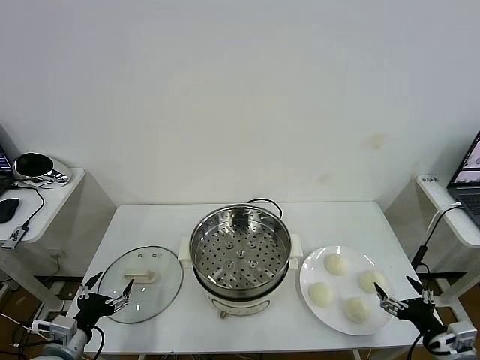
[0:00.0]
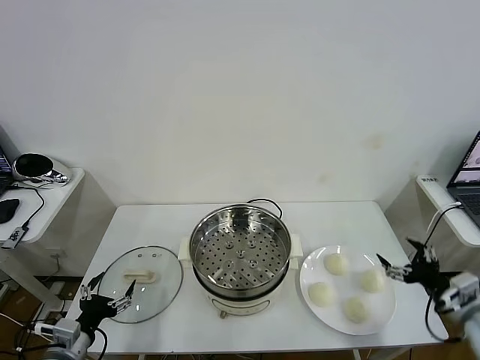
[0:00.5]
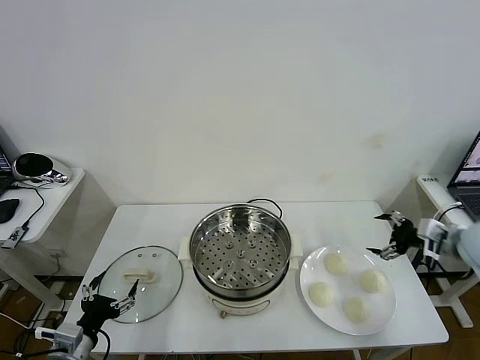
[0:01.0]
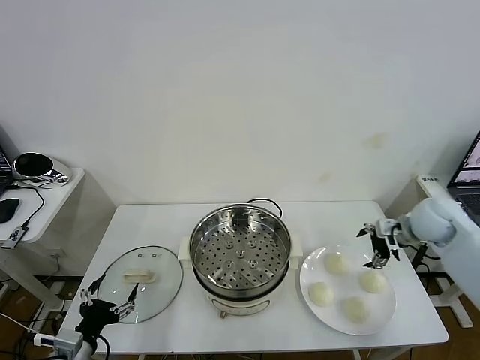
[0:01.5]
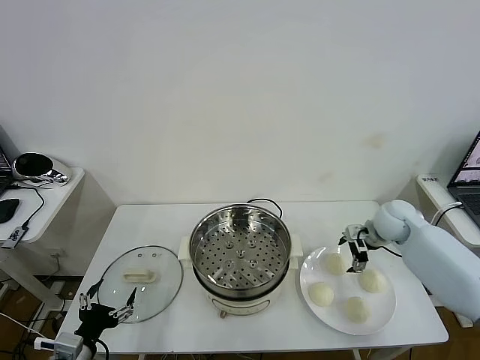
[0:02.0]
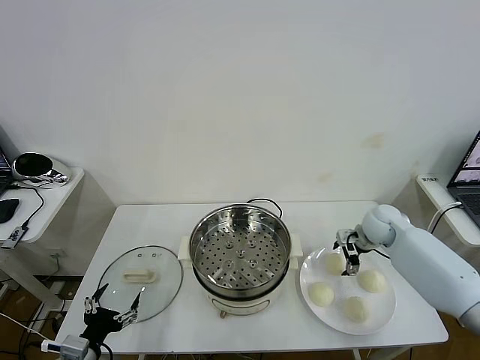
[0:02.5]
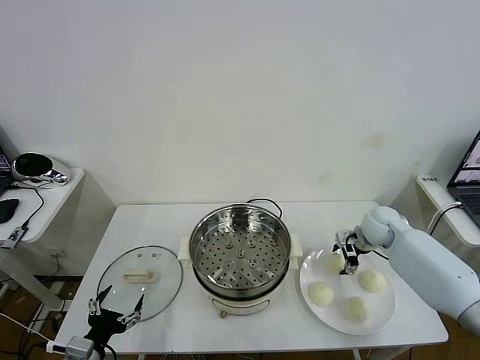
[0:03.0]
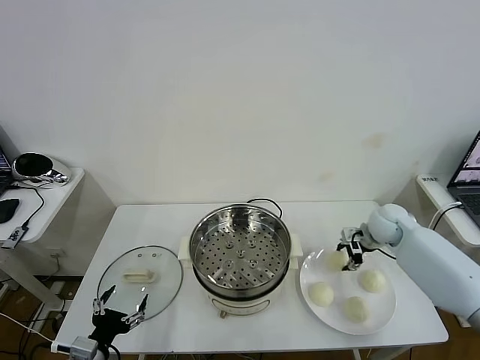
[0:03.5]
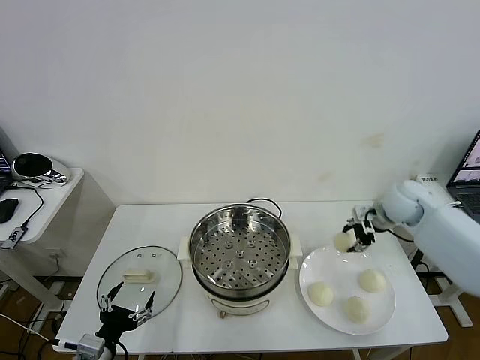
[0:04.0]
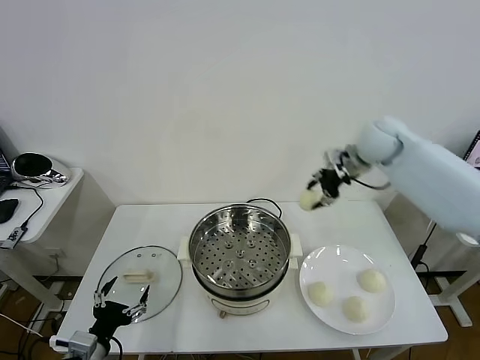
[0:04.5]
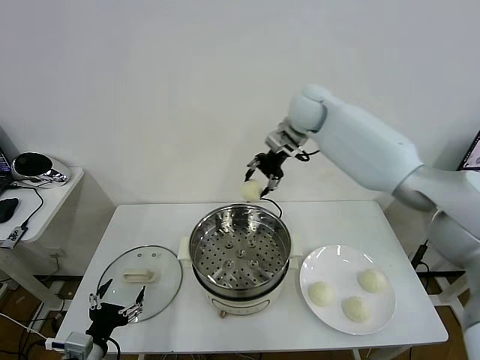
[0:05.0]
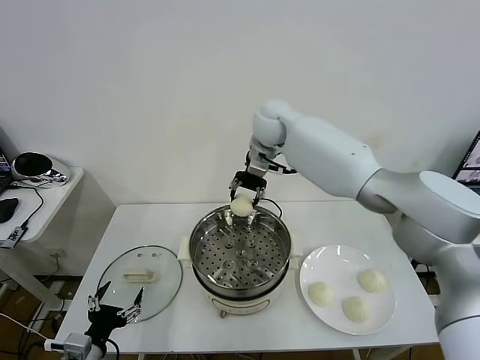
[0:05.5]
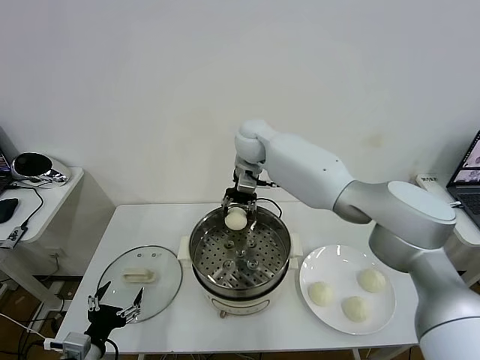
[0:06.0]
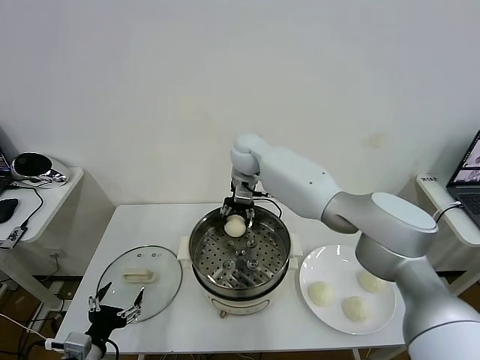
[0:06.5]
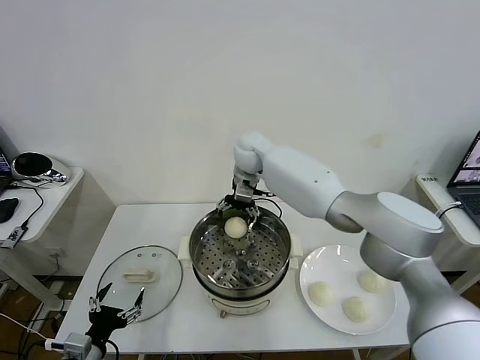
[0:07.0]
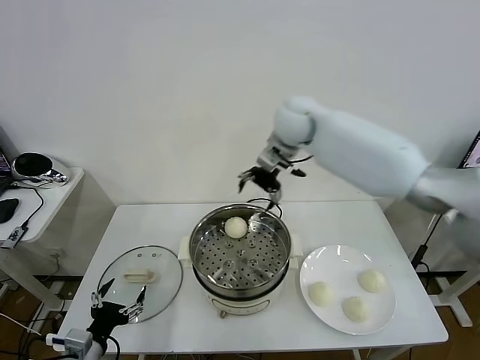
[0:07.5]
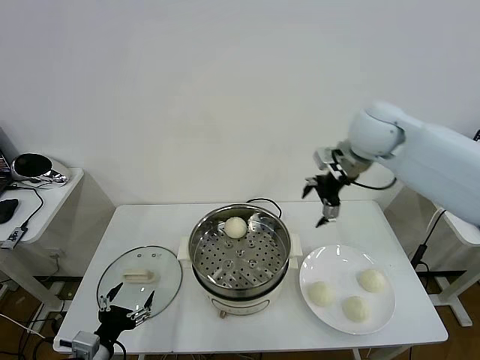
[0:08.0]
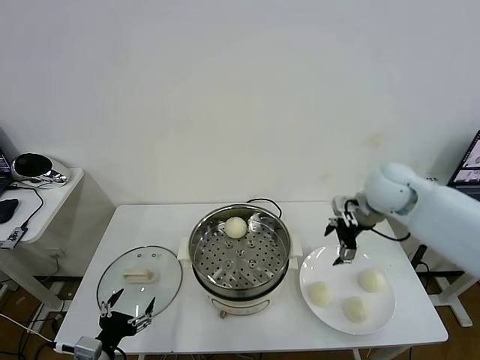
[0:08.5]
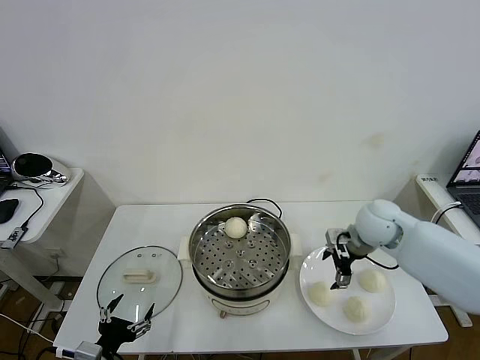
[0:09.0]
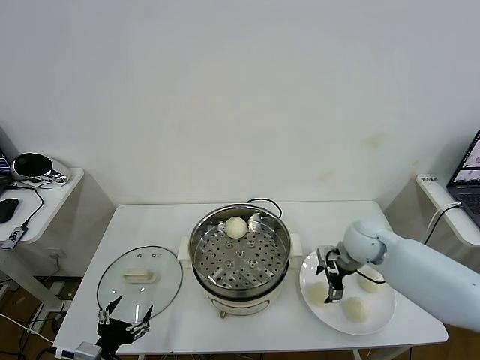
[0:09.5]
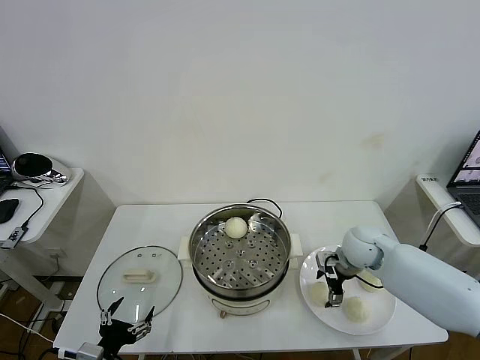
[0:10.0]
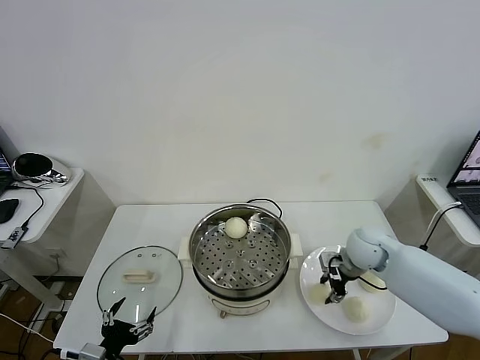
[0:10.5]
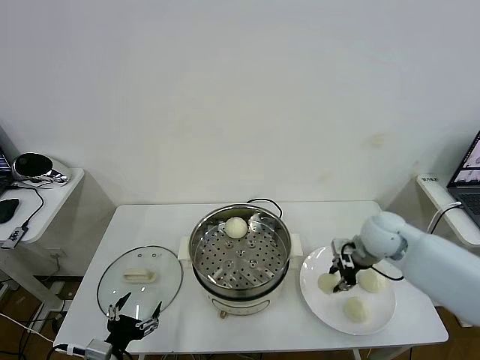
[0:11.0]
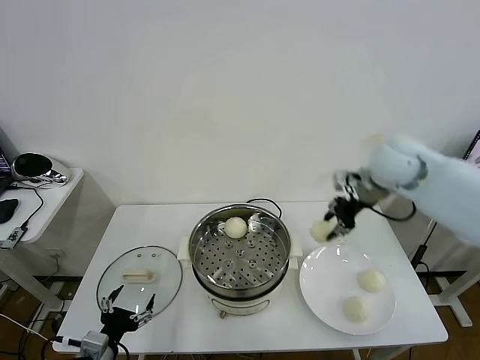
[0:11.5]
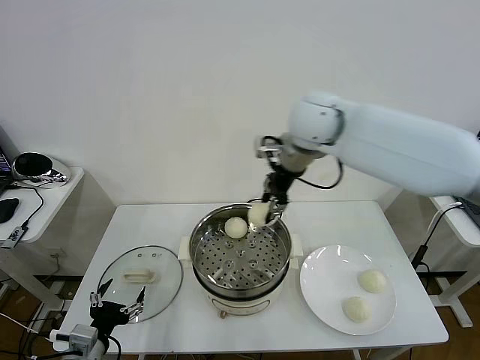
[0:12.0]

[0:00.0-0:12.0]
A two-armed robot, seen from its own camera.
Task of the whole recording: take steamed baozi put them in steamer then cover it.
Step, 0.0 to 3.0 s: Grasp the baozi in the plate with right gripper.
Step, 3.5 to 7.0 s: Place the baozi on the steamer with right gripper.
Step, 7.5 to 10.5 s: Grasp the baozi in the plate with right gripper.
2.0 to 4.0 s: The right gripper is displaced upward by about 10 cm, and closes its fingers.
4.0 to 6.0 s: The right gripper is displaced to the left by some 35 cm.
6.0 to 8.0 s: The right gripper shifts some 25 cm to the right and backward, and opens up.
8.0 to 10.0 s: The right gripper shifts roughly 25 cm downward.
10.0 to 12.0 s: The right gripper moves upward and to the left, roughly 35 cm, and closes up.

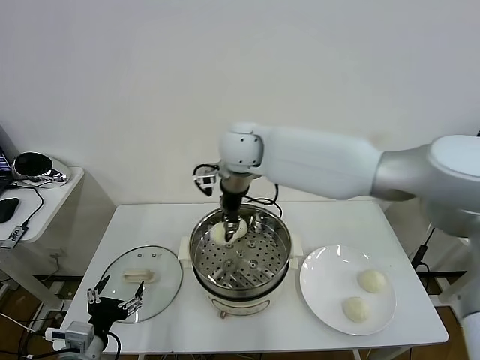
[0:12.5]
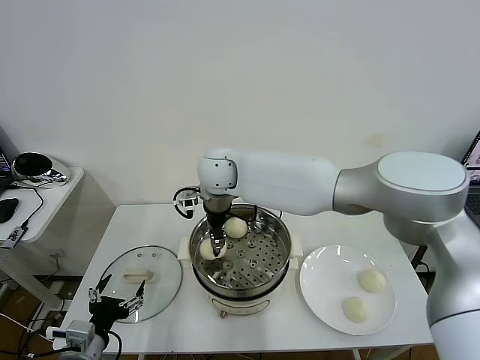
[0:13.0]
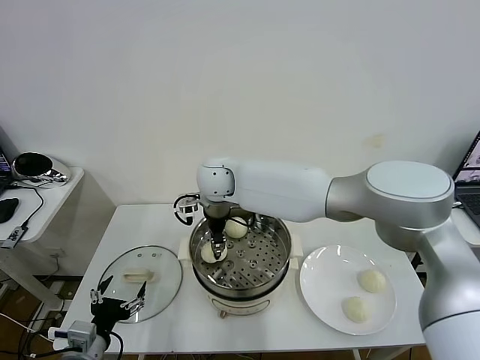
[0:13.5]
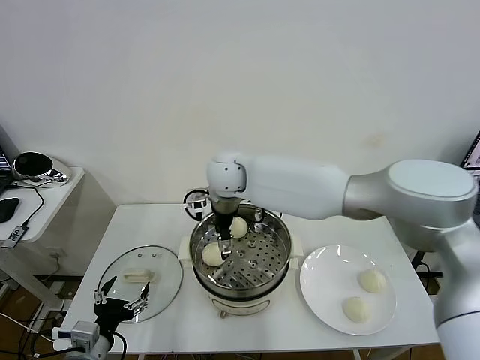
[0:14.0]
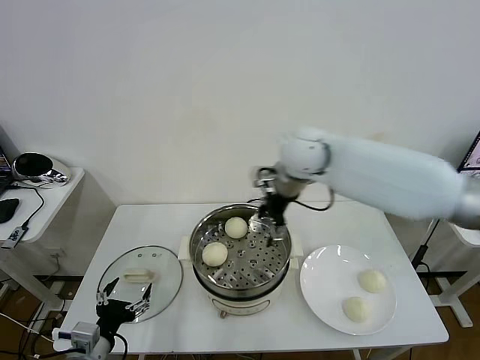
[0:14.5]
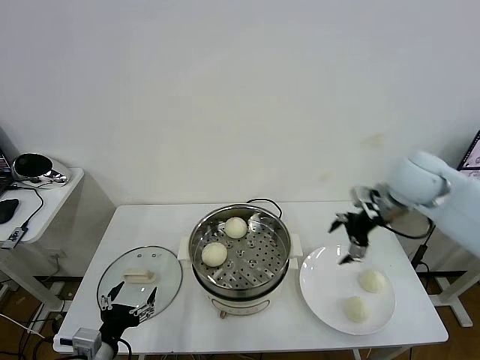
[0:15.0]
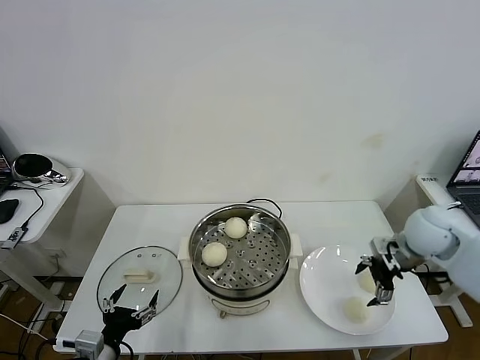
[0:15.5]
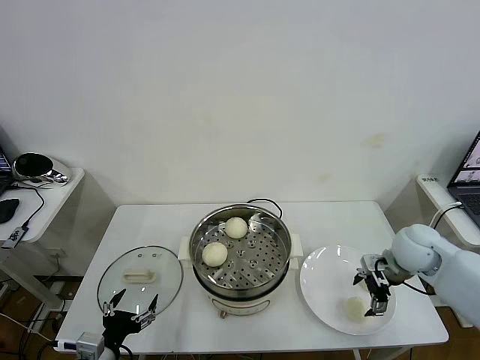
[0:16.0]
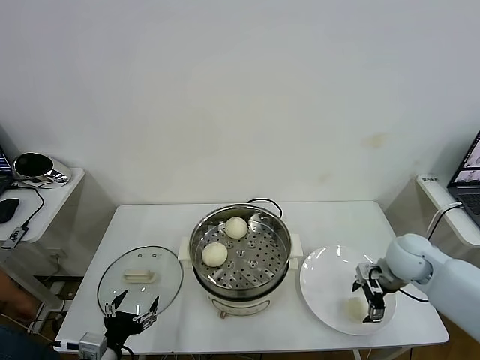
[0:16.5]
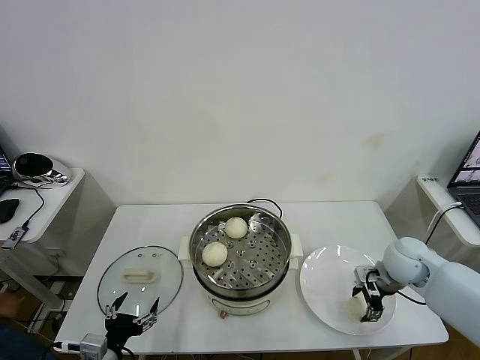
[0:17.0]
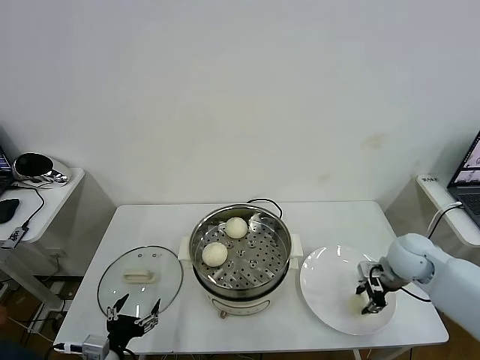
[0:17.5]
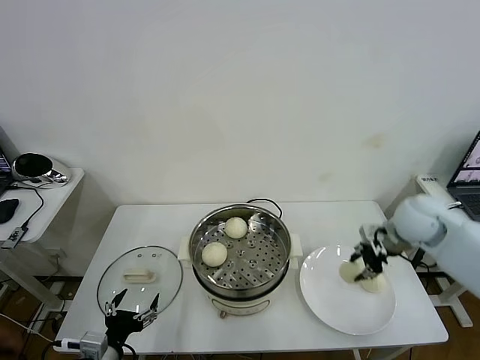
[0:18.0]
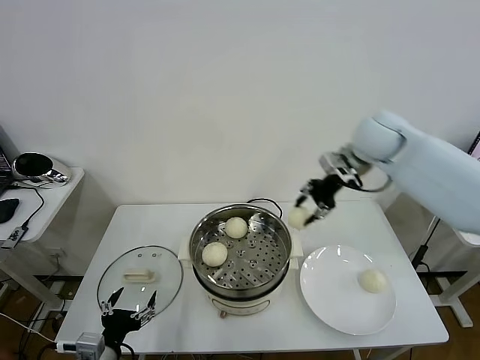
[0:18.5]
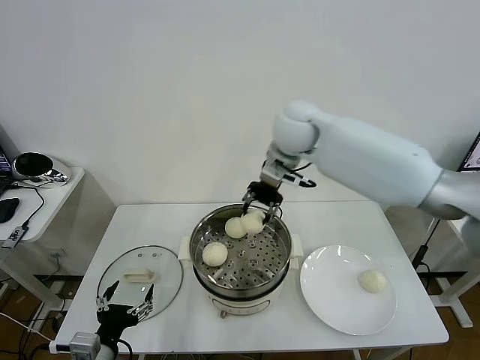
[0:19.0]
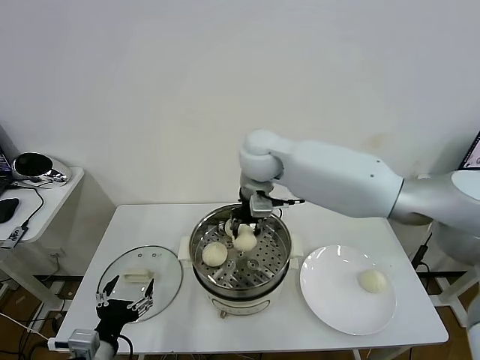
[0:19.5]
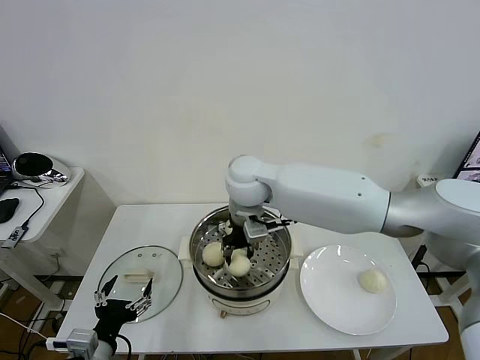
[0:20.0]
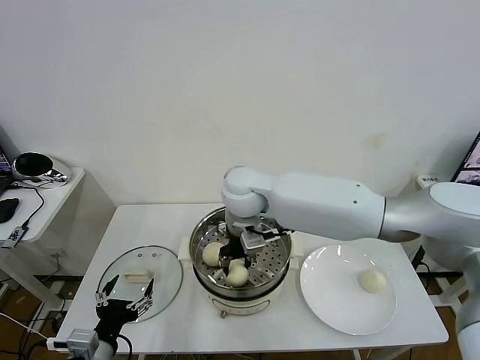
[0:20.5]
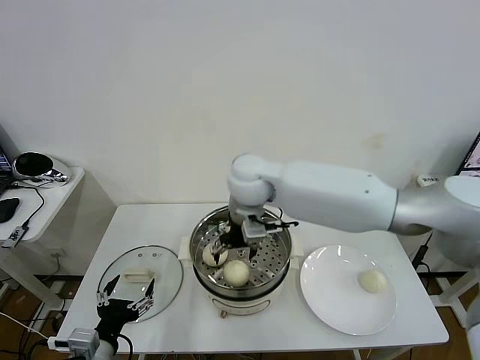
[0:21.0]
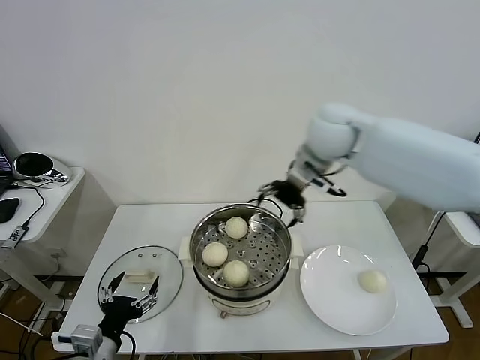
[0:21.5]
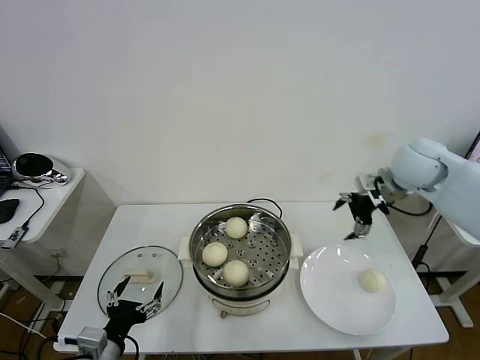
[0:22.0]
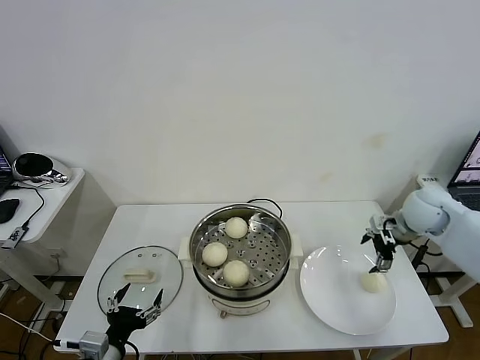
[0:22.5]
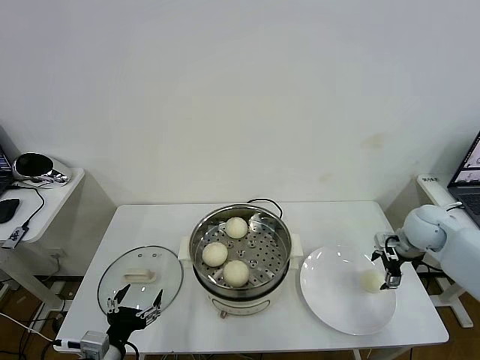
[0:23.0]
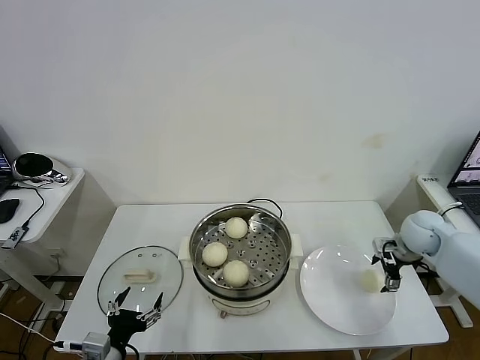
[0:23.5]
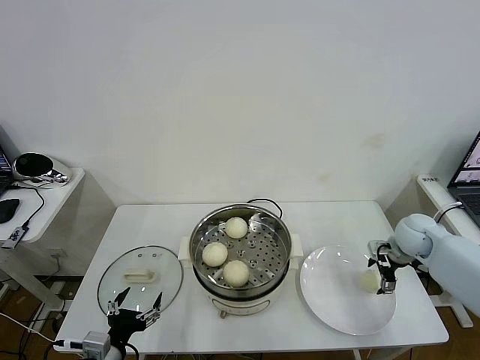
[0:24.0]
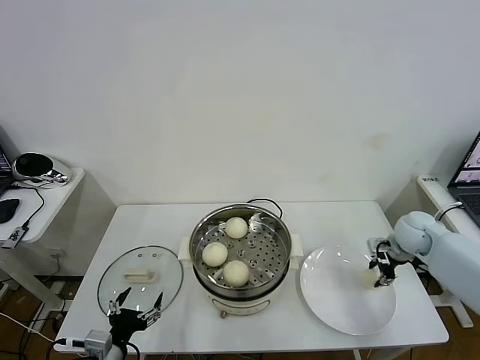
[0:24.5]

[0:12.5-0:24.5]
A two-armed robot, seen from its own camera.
Task of the whole recording: take steamed baozi put them in steamer then cover it.
Step, 14.5 to 17.5 s: Grasp the baozi in the plate with right gripper.
Step, 18.0 to 21.0 s: Place the baozi on the steamer with right gripper.
12.5 to 14.5 s: The right gripper shifts some 15 cm to the right, and opens its fingers.
14.5 to 16.5 s: The right gripper heads to the right, downward and backward, covering some 30 cm.
16.5 to 18.5 s: The right gripper heads upward, forward and to the left, covering approximately 30 cm, and closes.
18.5 to 20.5 s: The right gripper heads to the left and downward, covering about 25 cm.
20.5 to 22.5 s: The right gripper shifts about 40 cm to the right, and opens its fingers.
22.5 to 24.5 s: The right gripper is displaced downward by approximately 10 cm, and closes up.

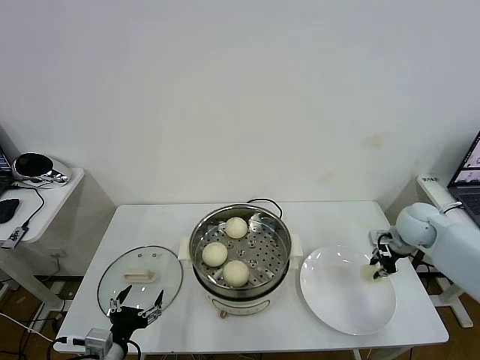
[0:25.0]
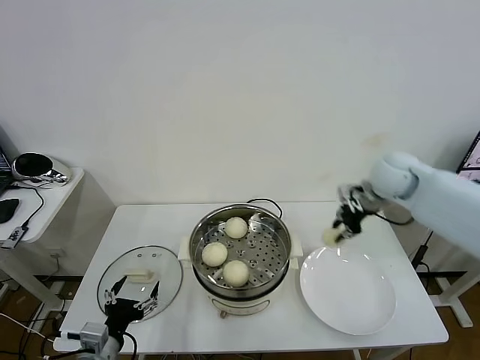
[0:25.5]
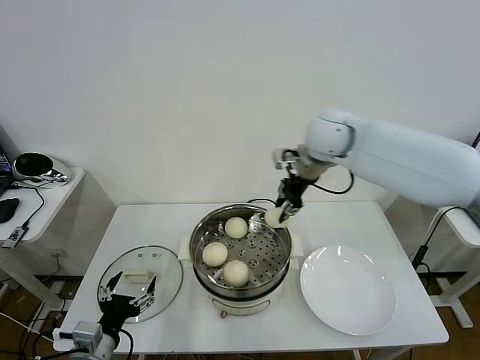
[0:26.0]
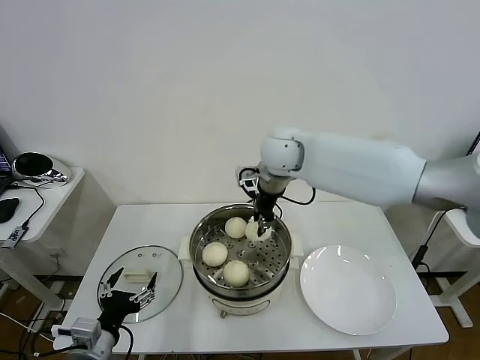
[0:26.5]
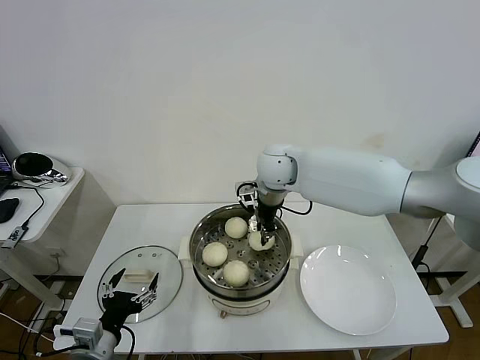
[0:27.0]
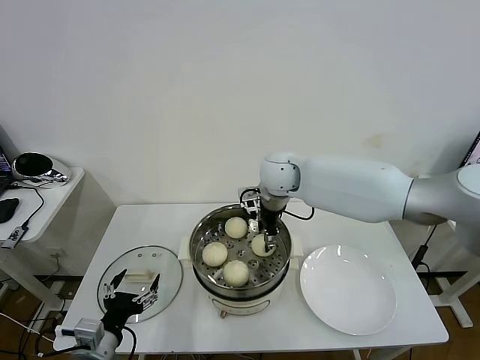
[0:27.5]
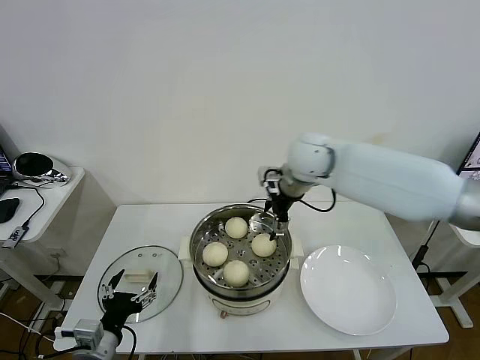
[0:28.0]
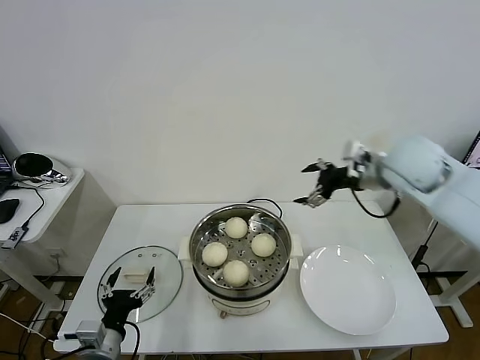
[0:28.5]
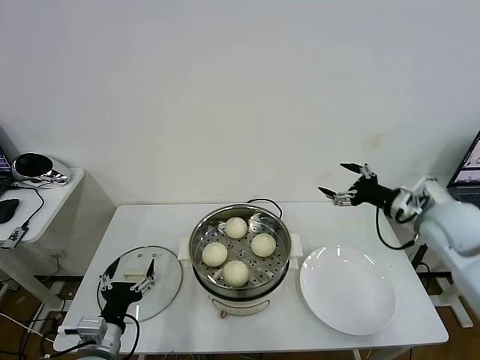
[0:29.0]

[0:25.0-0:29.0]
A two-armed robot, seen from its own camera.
Task of the whole recording: take steamed baozi put them in steamer then cover it.
Step, 25.0 to 27.5 s: Place the baozi on the steamer with right gripper.
25.0 to 27.0 s: The right gripper travels to the left by about 35 cm.
27.0 to 29.0 s: The right gripper travels to the right and backward by about 35 cm, and opens up.
